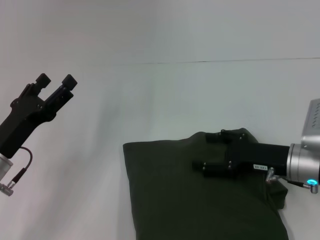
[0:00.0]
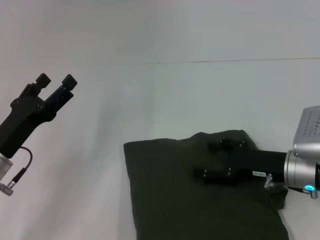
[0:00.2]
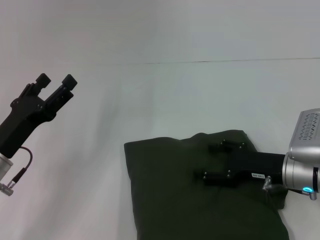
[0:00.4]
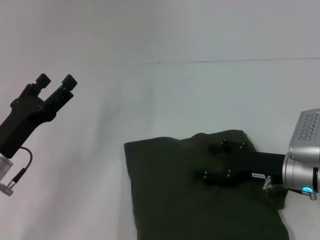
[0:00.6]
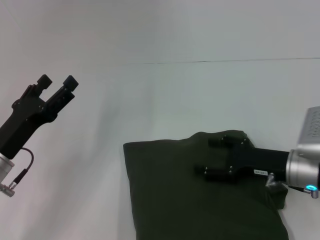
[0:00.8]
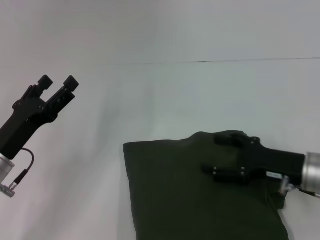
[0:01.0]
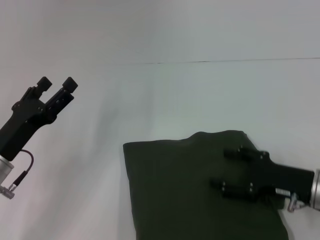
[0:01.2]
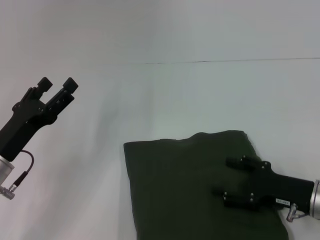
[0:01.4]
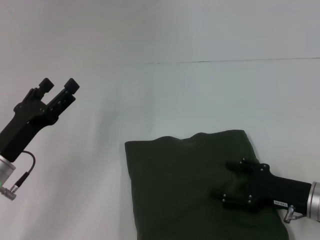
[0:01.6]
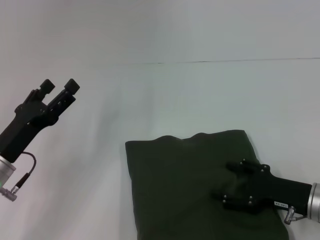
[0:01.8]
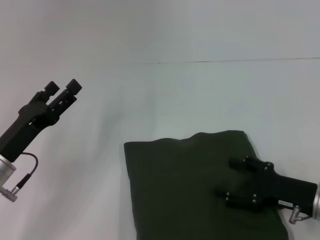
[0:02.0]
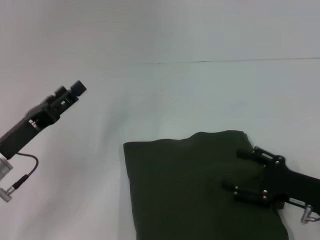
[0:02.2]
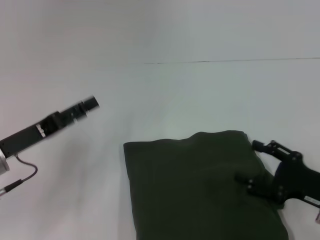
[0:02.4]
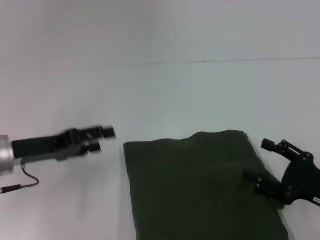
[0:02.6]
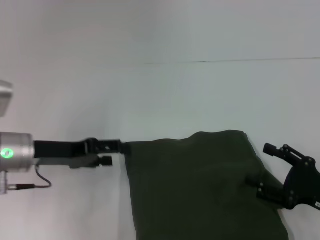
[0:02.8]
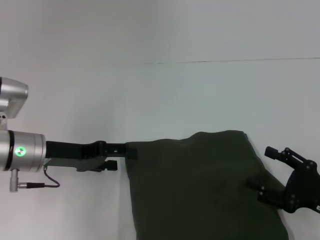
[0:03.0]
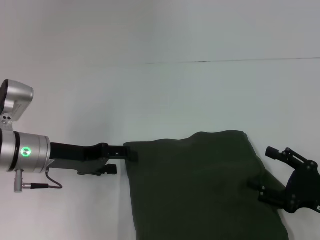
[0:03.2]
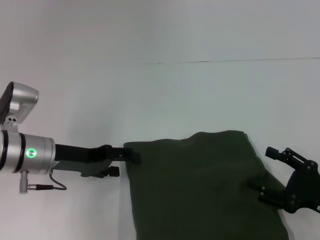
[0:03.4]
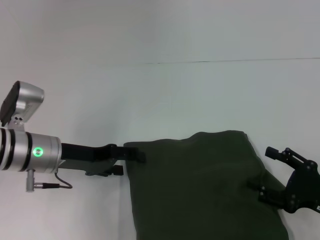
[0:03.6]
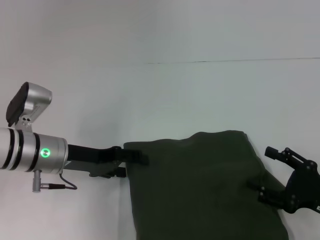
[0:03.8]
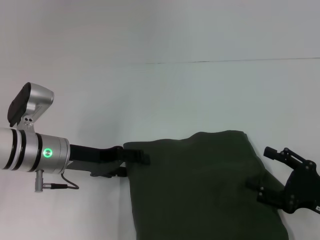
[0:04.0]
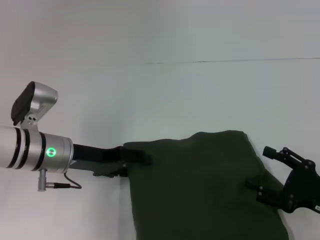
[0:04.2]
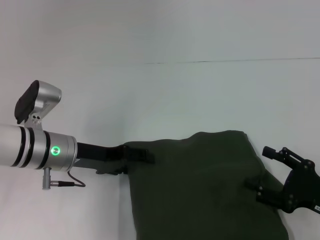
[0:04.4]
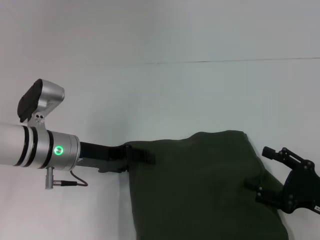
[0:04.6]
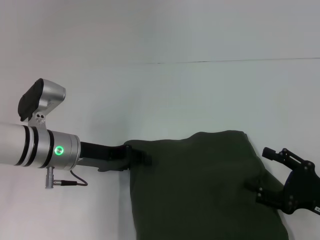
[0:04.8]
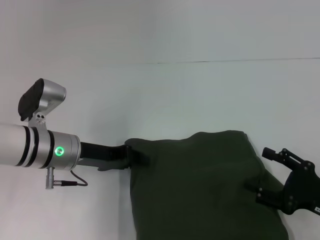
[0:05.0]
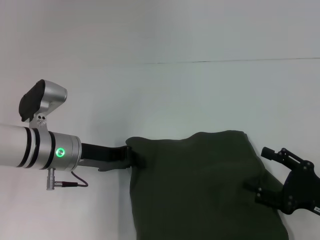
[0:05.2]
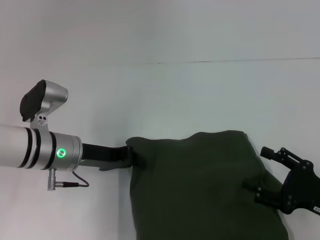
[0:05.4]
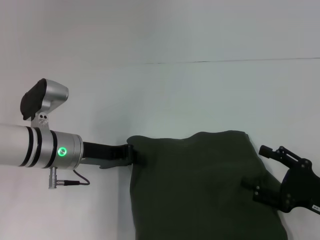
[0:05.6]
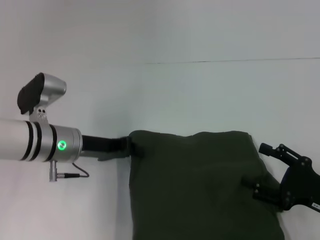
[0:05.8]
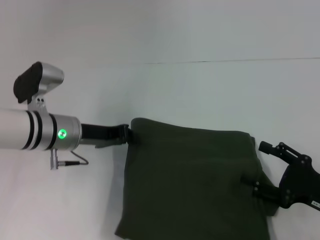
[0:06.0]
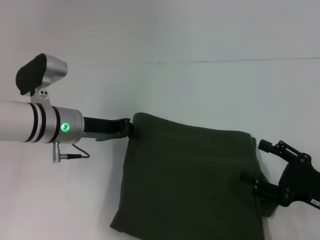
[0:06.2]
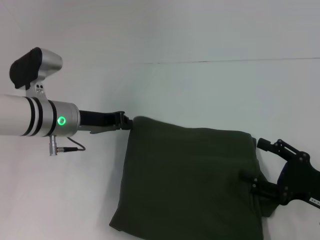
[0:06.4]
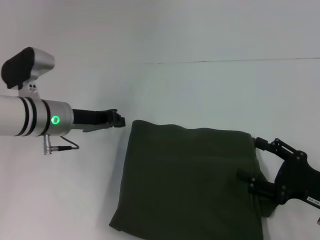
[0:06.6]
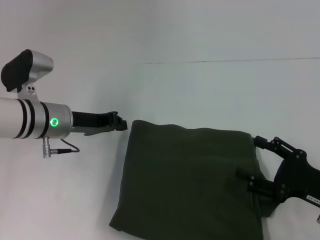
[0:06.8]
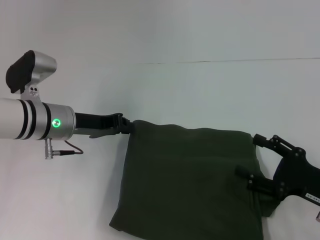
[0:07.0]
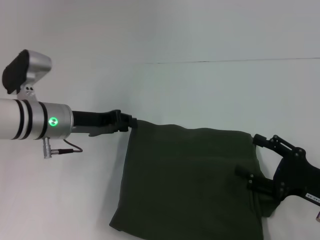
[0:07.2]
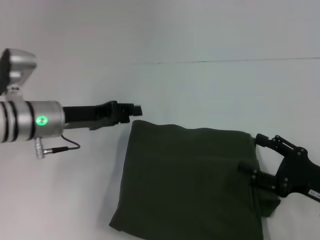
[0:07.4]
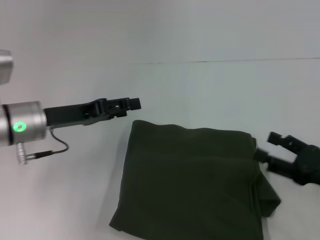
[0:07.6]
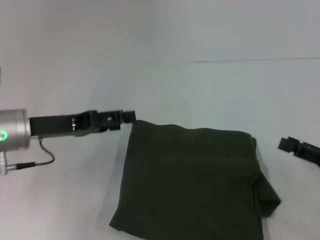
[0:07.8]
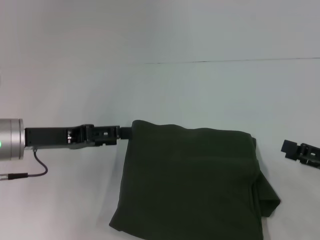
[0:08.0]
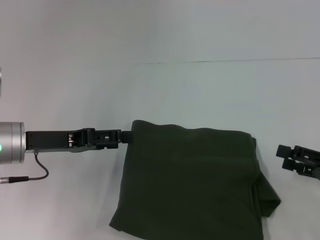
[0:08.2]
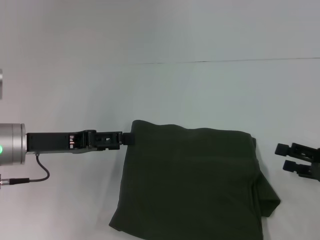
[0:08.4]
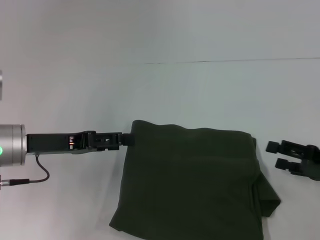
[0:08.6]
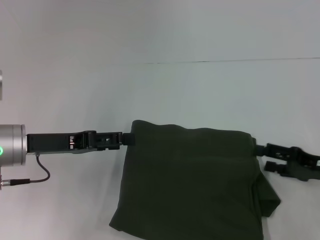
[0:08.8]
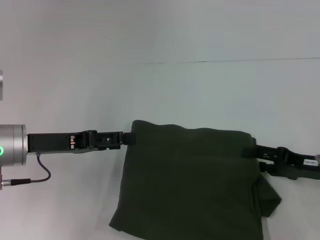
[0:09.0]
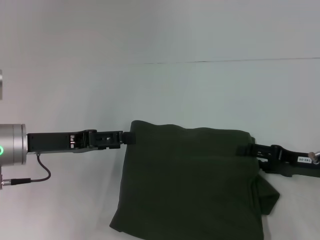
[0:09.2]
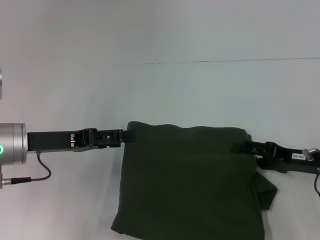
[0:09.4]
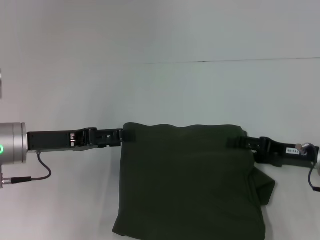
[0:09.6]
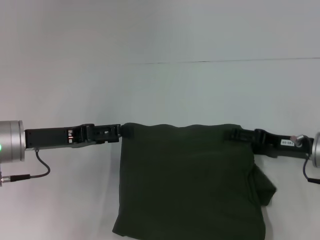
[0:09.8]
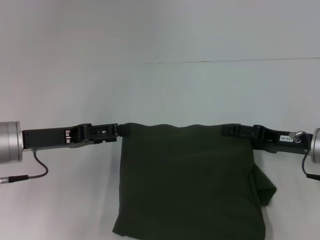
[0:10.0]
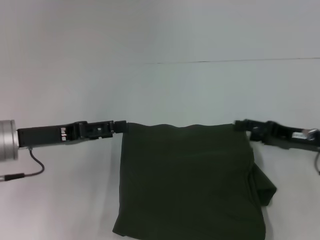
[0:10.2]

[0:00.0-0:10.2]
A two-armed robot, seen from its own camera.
0.0 to 1.4 s: The right gripper heads backward, covering approximately 5 cm.
1.4 to 3.0 s: The left gripper shifts approximately 5 cm forward. Meanwhile the right gripper shifts by approximately 5 cm.
3.0 to 4.4 s: The grippers stay close to where they were, moving slightly.
4.4 to 5.8 s: The left gripper closes its fingers.
5.8 to 7.2 s: The grippers make only small movements.
7.2 to 8.8 s: The left gripper is displaced backward by some 5 cm, and opens. Meanwhile the right gripper moves forward, about 5 cm.
8.8 to 10.2 s: The right gripper changes place by about 5 cm.

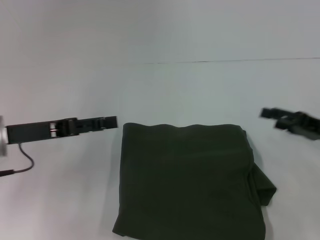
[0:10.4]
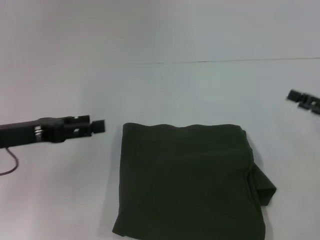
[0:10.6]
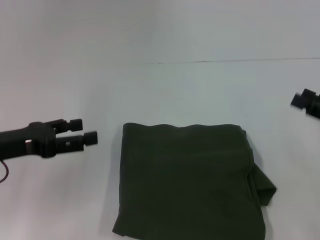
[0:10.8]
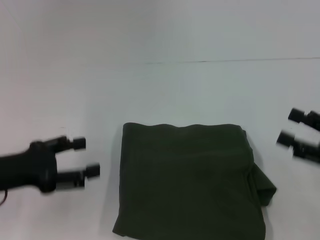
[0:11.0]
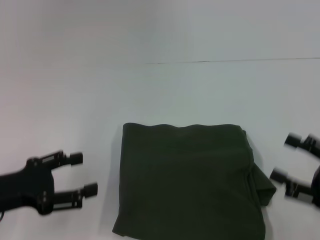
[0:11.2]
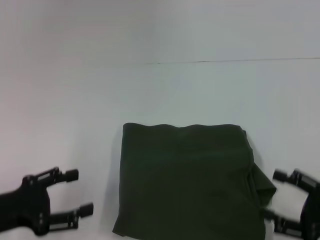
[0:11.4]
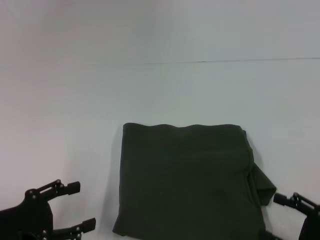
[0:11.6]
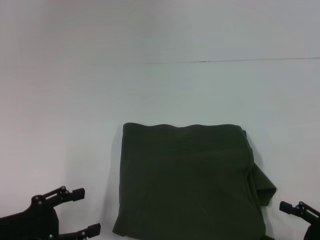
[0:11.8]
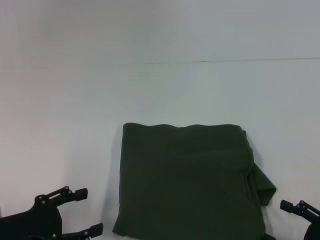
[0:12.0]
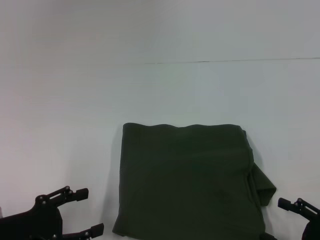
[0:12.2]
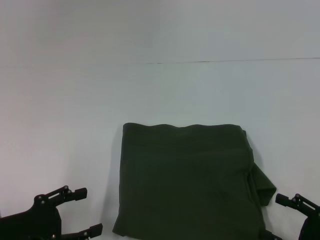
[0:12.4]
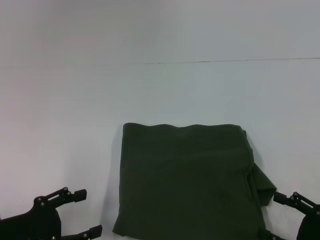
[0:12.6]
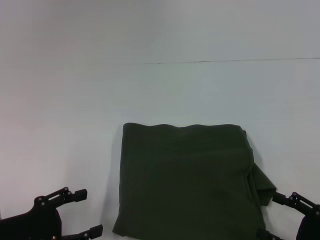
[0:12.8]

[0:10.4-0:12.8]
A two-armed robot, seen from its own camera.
10.4 to 11.6 s: The right gripper heads backward, covering about 15 cm, while the left gripper goes some 15 cm backward and downward.
11.6 to 12.8 s: The grippers stay close to where they were, moving slightly.

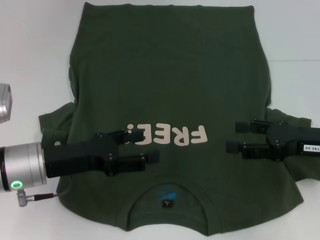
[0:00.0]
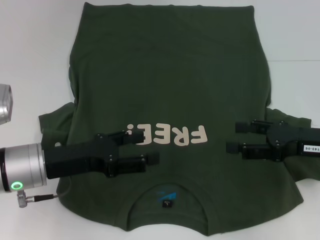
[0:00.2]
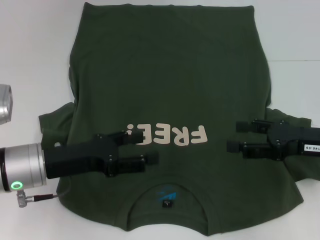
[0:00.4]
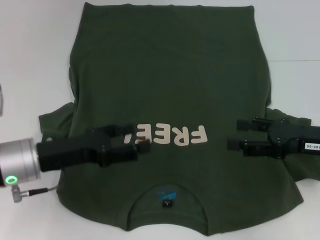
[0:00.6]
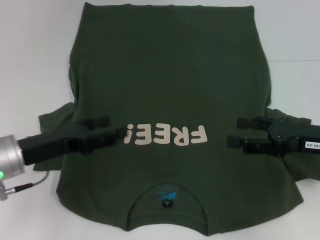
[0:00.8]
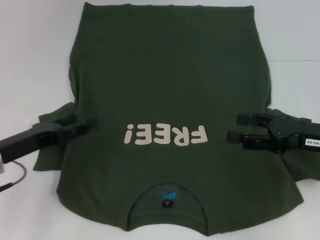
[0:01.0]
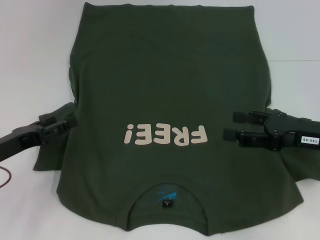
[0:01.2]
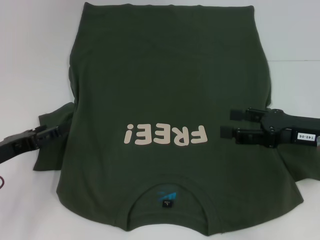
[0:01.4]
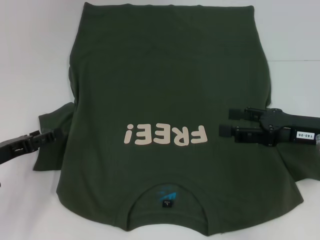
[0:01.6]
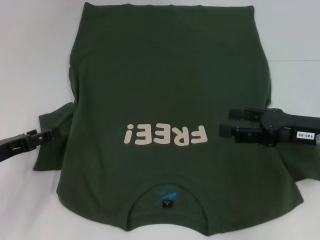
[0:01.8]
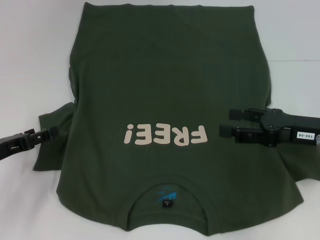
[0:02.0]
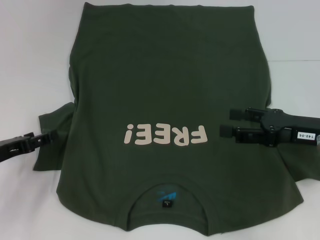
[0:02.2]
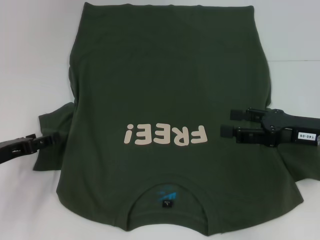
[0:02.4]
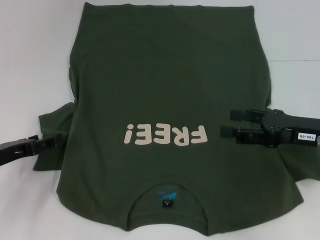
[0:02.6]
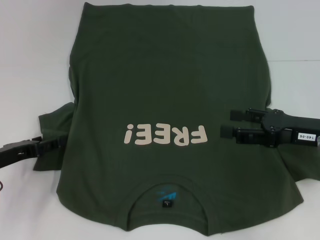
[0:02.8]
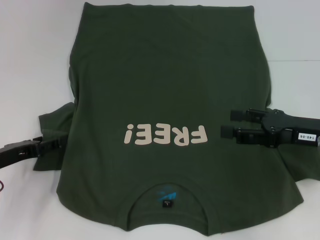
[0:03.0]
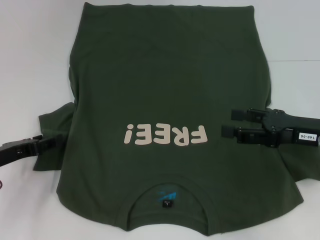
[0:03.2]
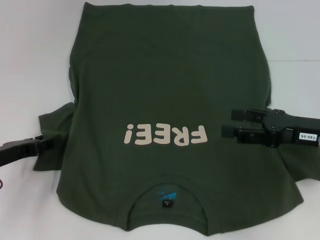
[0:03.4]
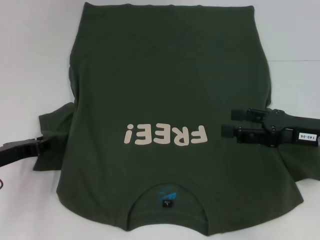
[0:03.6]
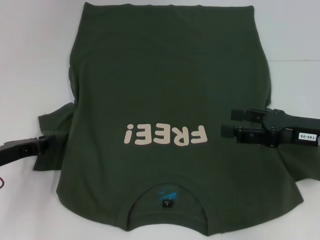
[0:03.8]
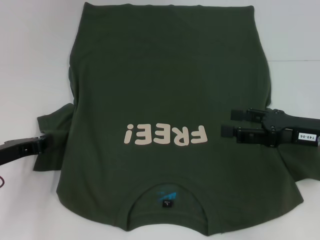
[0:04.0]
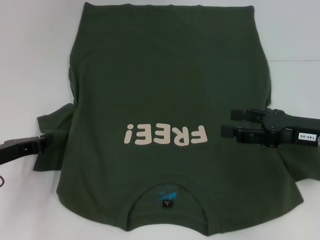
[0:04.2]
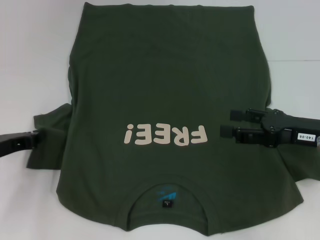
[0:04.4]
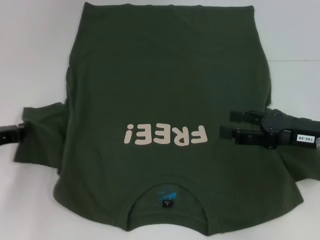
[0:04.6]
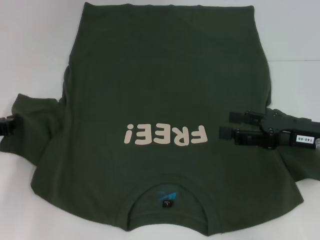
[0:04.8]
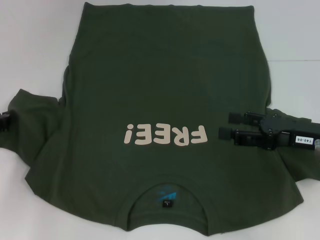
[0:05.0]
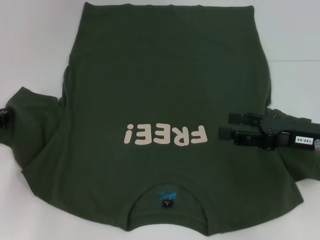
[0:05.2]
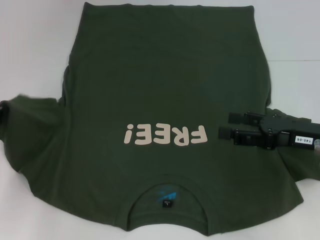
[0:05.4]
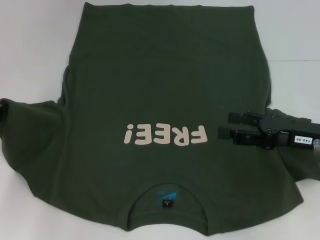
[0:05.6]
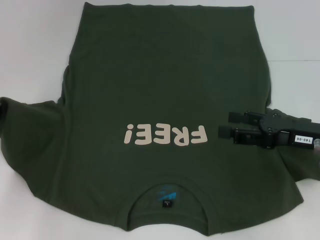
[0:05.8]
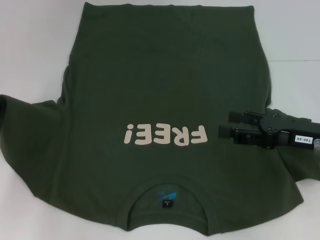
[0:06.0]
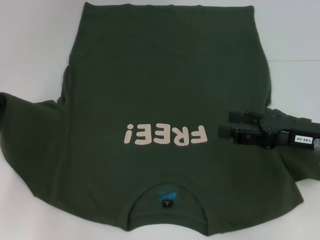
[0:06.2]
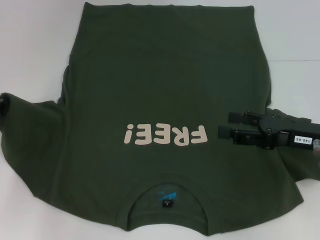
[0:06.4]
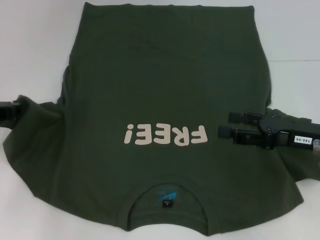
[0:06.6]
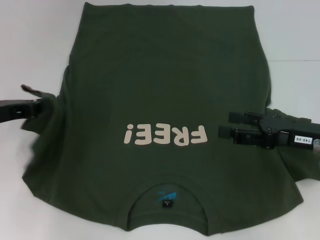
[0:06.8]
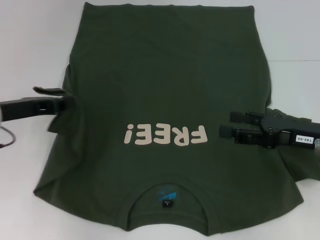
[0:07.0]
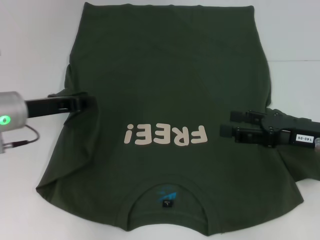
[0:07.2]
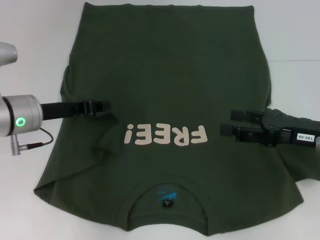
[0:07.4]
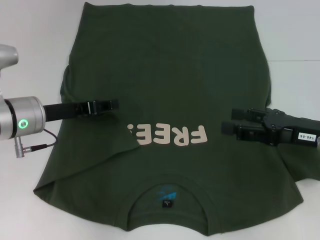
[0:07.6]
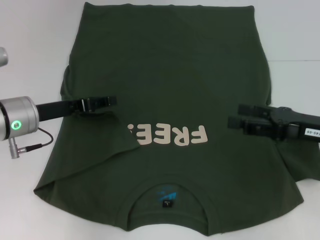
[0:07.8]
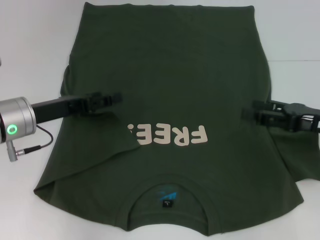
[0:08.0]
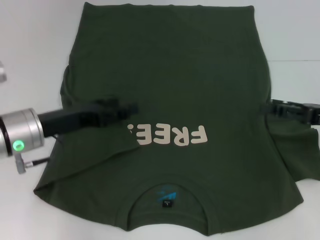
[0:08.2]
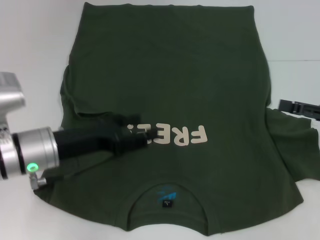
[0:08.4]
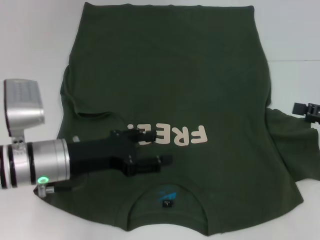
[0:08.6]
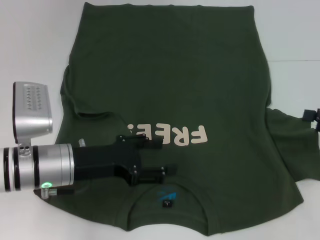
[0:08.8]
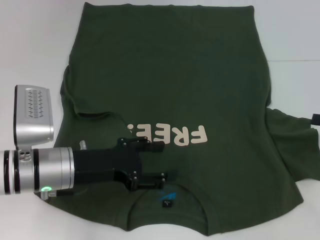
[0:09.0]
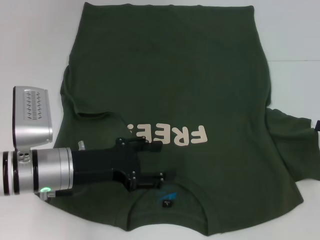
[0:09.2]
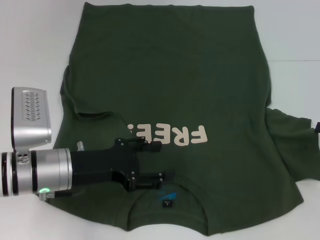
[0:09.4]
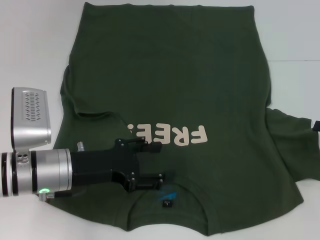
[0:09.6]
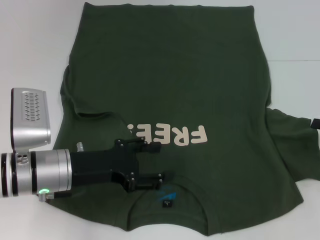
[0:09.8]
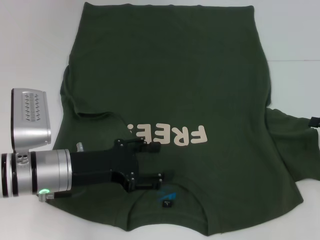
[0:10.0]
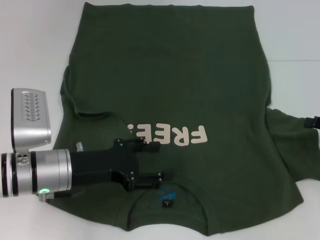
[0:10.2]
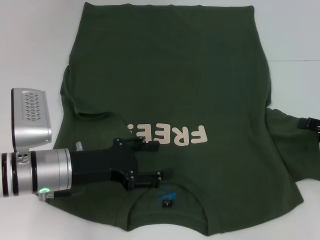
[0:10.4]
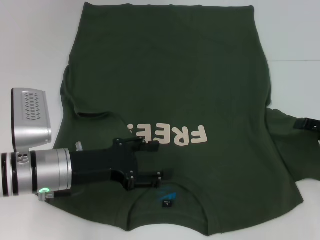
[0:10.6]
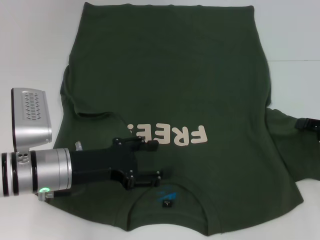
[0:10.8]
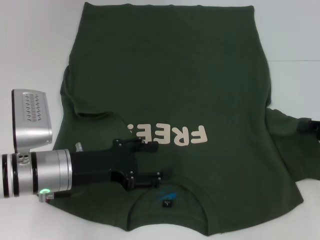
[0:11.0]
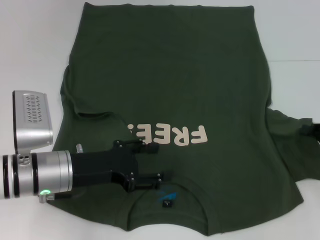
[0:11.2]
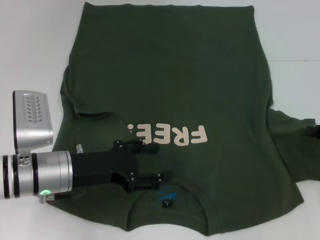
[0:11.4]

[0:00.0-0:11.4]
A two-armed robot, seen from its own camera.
Step, 0.0 to 7.8 s: Fold the bottom left sleeve with your left hand.
0.0 to 1.4 s: The left gripper moves to the left, roughly 10 cm.
1.4 to 2.8 s: The grippers move only a little.
2.8 to 4.2 s: The left gripper closes its fingers.
4.2 to 5.6 s: The left gripper ends up approximately 5 cm from where it was.
5.6 to 7.2 s: The left gripper heads to the right, covering roughly 10 cm.
7.2 to 8.6 s: The right gripper shifts roughly 10 cm to the right, while the left gripper moves to the right and backward, about 10 cm, and opens its fingers.
10.0 to 11.4 s: The right gripper closes.
